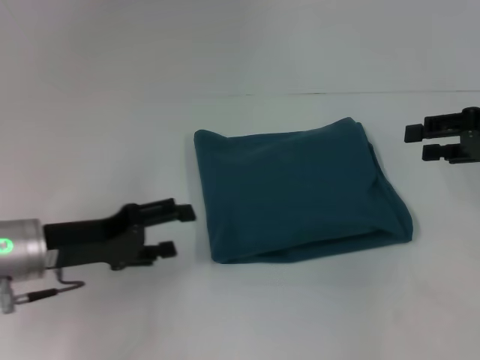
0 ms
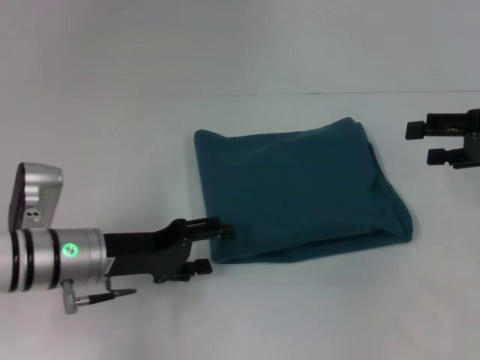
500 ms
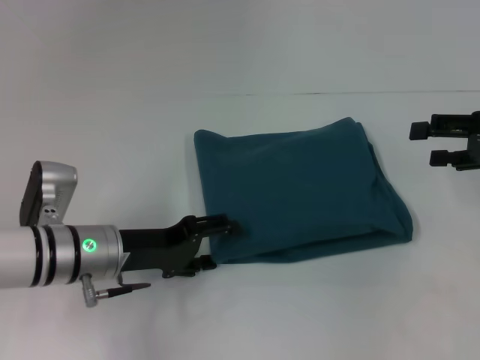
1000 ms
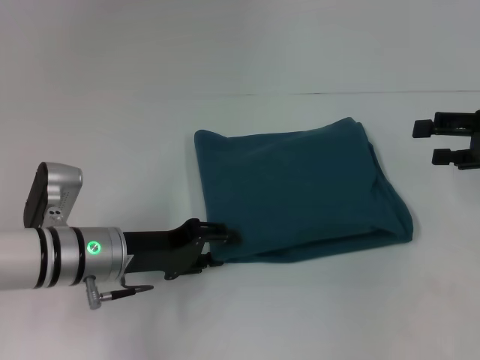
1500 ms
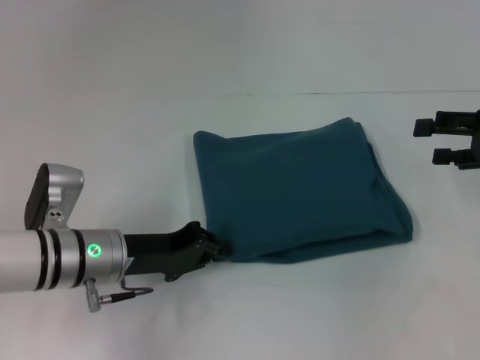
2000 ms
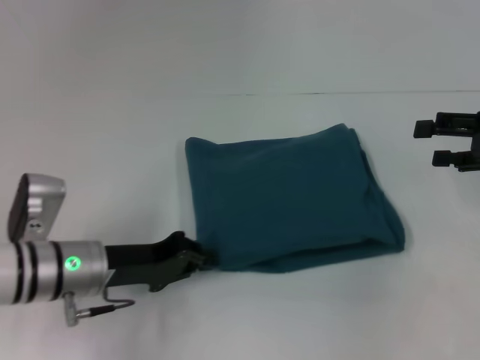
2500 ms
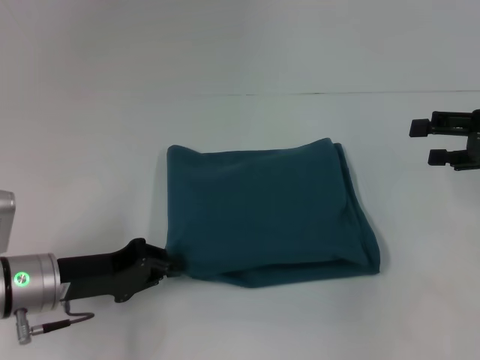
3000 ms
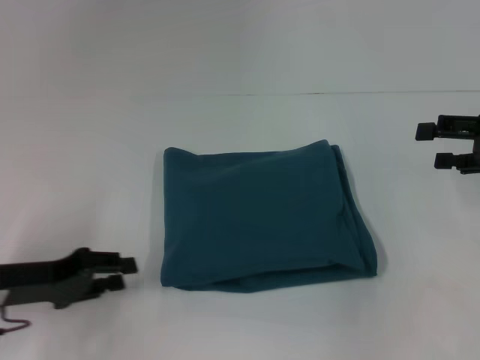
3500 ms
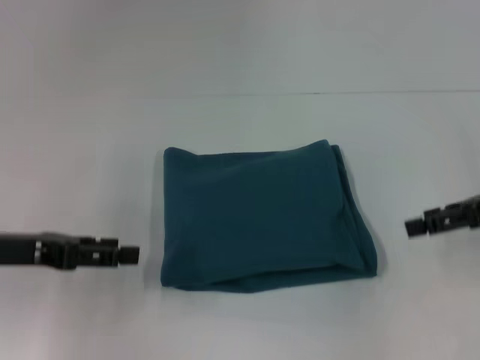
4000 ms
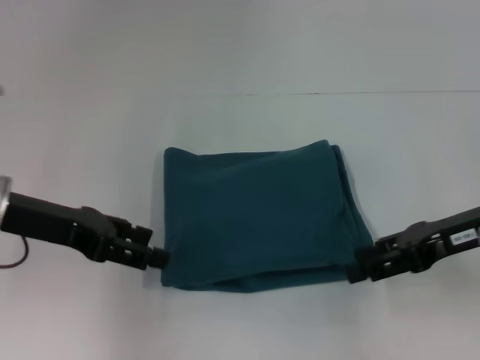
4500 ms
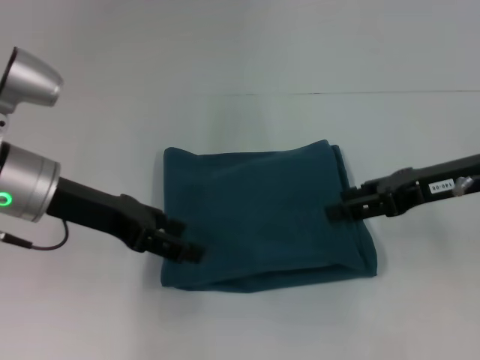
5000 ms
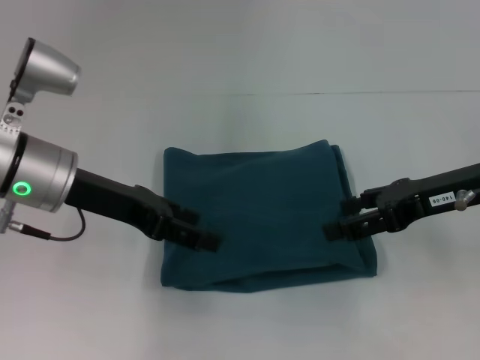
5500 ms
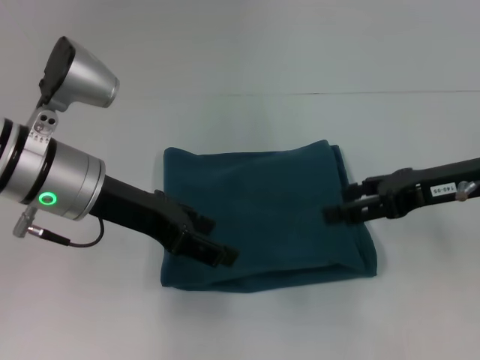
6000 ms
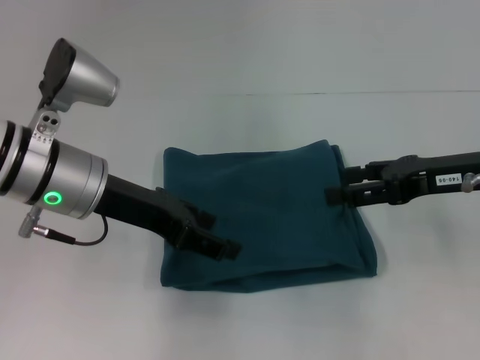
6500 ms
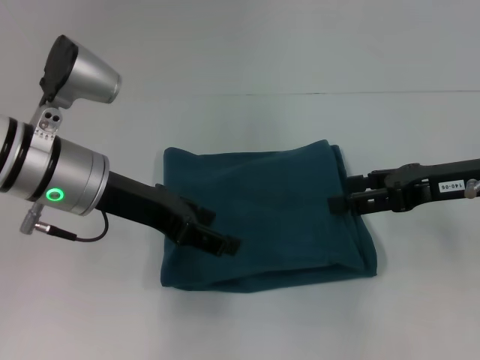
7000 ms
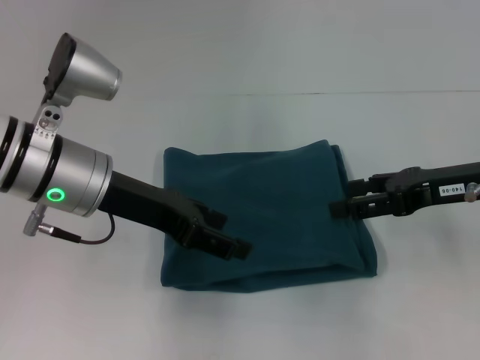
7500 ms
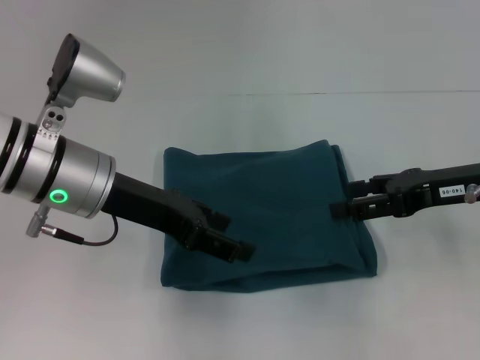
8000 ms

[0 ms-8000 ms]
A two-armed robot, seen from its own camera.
0 ms to 2000 ms: The left gripper heads to the right, covering approximately 5 cm, and closes up. Meanwhile the right gripper opens its fingers.
2000 ms to 4000 ms: The left gripper is displaced to the left and upward by approximately 15 cm, and opens up.
4000 ms to 6000 ms: The left gripper is displaced to the right by roughly 10 cm. Meanwhile the right gripper is displaced to the left by roughly 10 cm.
6000 ms to 8000 ms: The grippers move only a little.

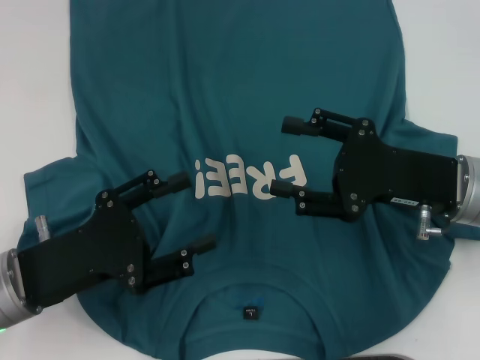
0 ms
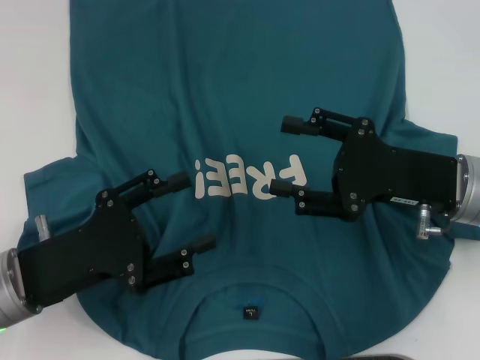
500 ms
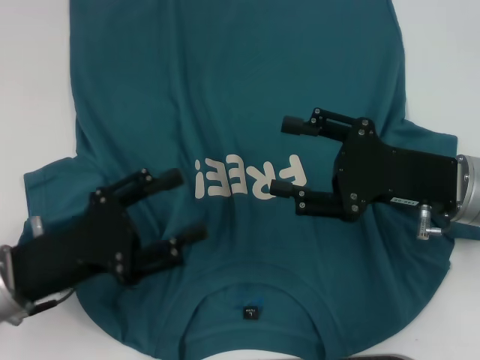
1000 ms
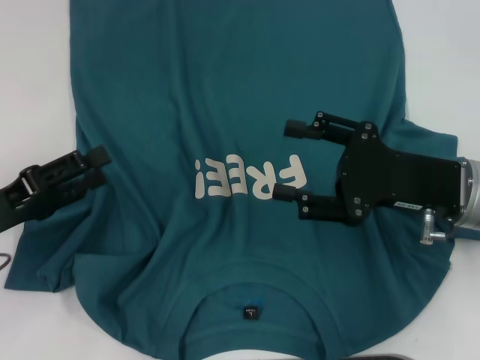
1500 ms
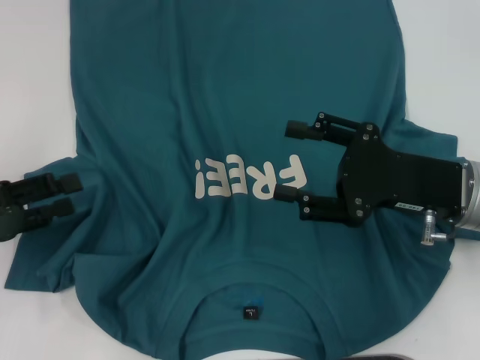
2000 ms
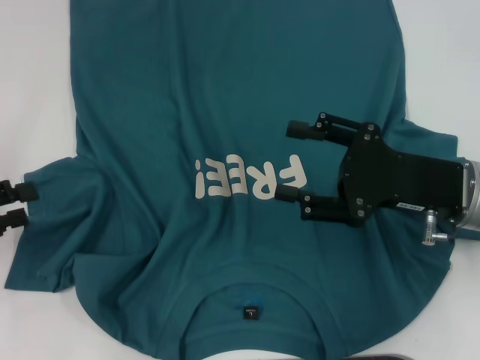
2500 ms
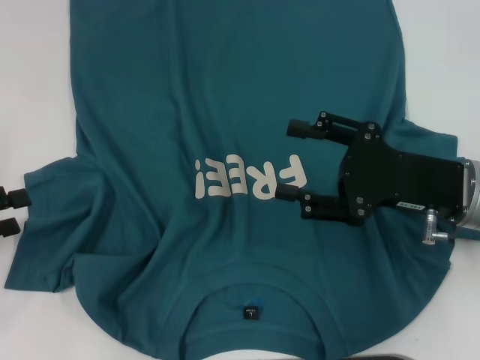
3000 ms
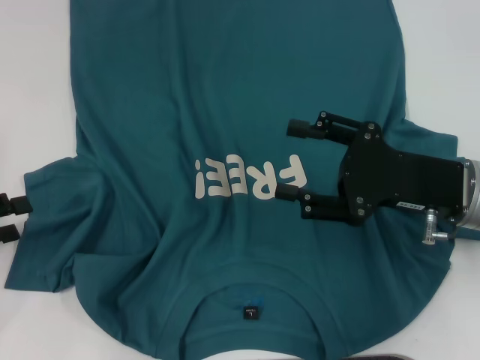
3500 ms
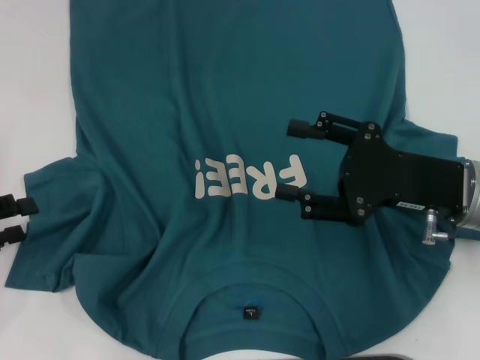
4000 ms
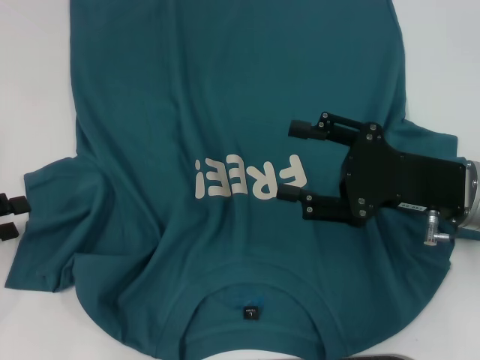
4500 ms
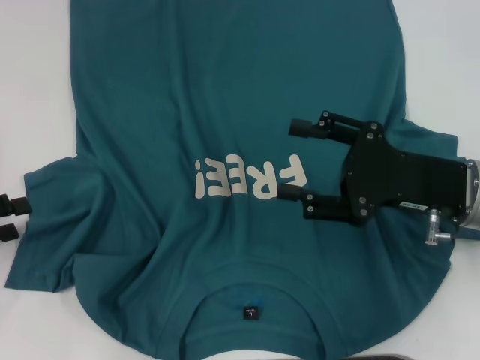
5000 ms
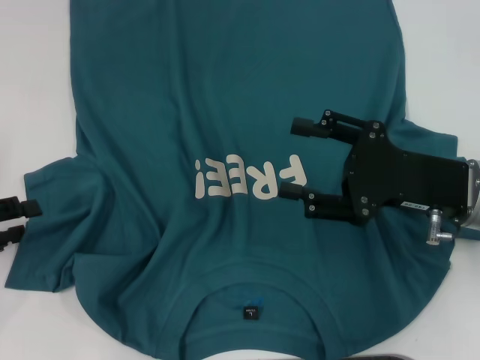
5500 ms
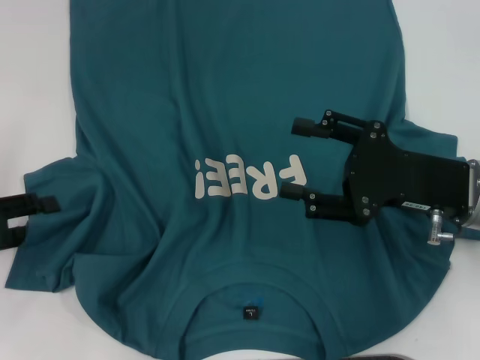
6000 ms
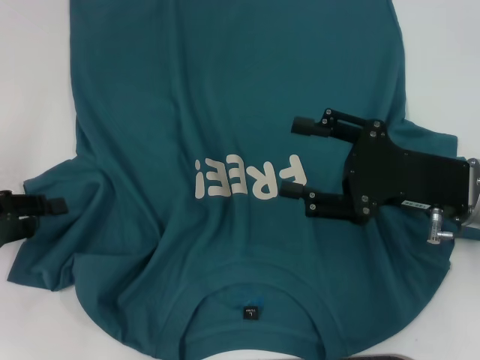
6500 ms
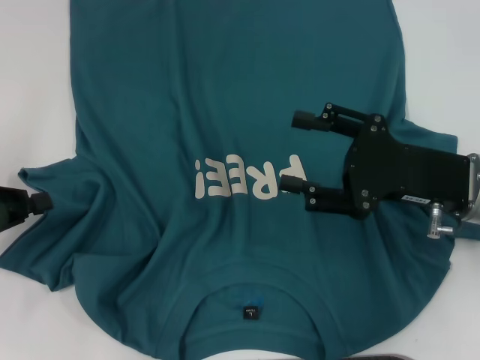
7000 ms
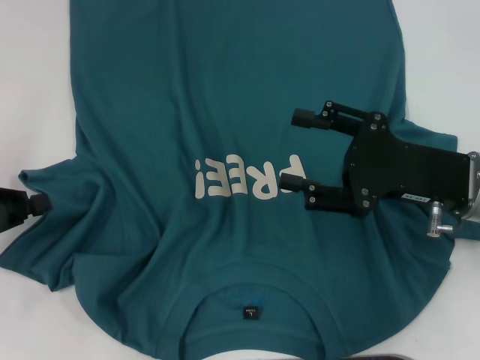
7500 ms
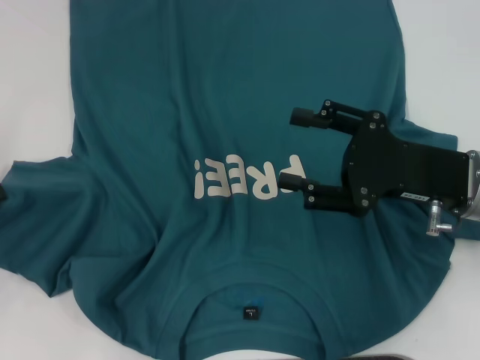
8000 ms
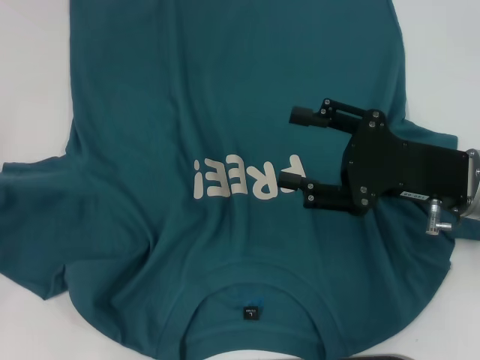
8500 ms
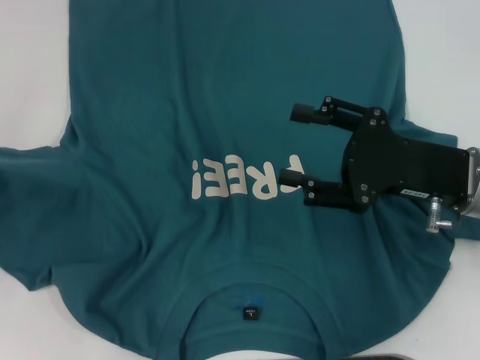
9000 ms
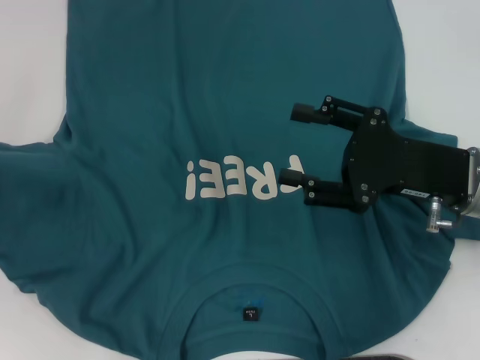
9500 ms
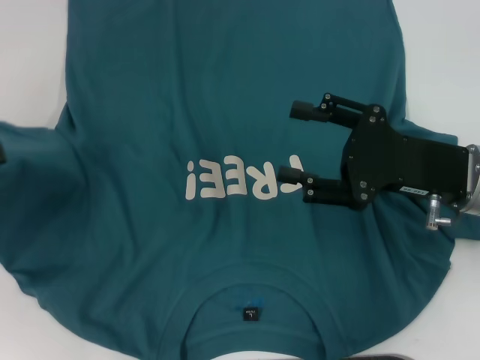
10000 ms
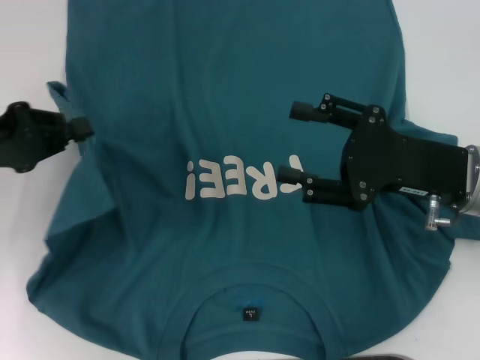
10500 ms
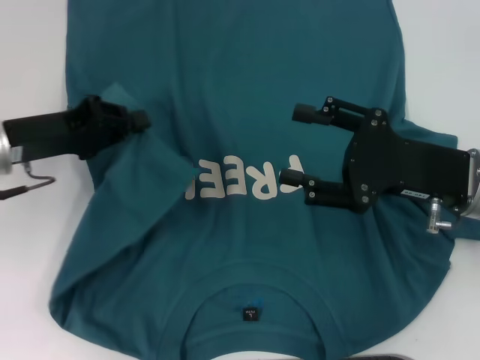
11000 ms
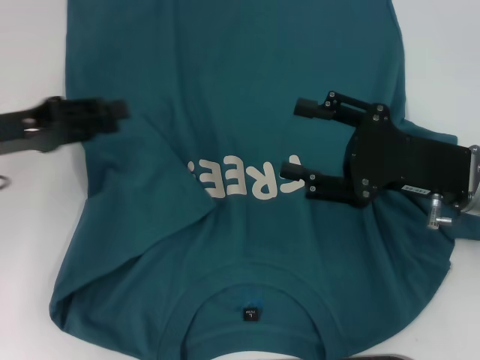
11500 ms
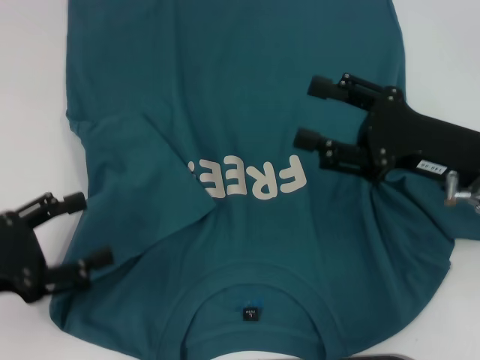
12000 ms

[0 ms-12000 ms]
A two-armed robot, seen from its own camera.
Step, 0 ms to 11000 ms: Fold the bottom left sleeve with your left hand.
0 ms to 2000 ms: The left gripper goes some 10 cm to the left.
2000 ms to 6000 ms: The grippers make only small movements.
6000 ms to 8000 ms: The left gripper closes up.
8000 ms to 10000 ms: The left gripper shifts by approximately 5 cm.
10000 ms to 12000 ms: The left gripper travels downward, backward and to the right by some 10 cm, and opens.

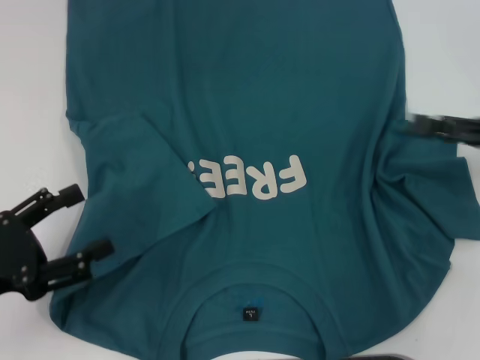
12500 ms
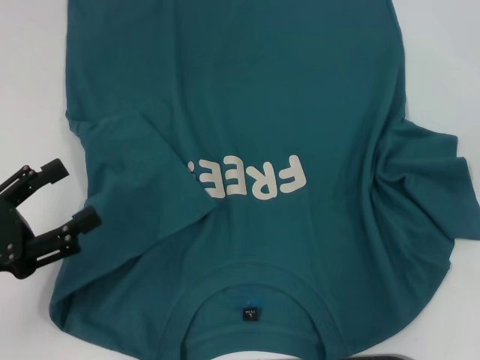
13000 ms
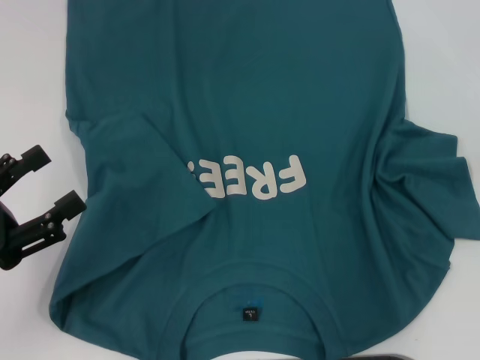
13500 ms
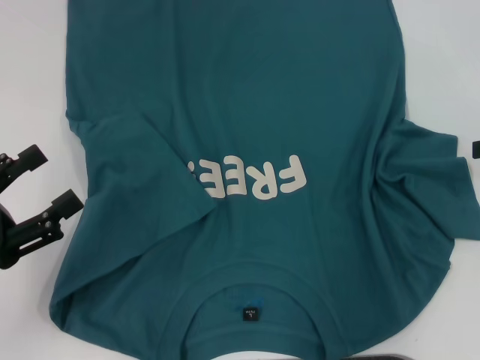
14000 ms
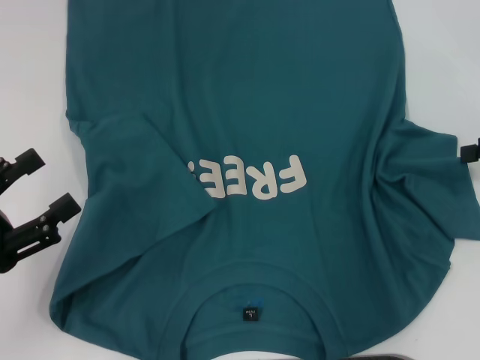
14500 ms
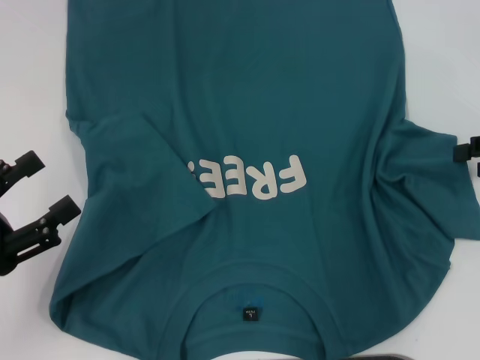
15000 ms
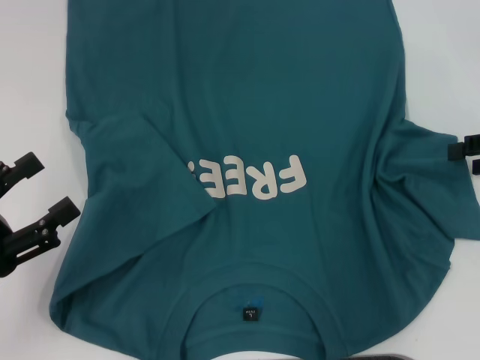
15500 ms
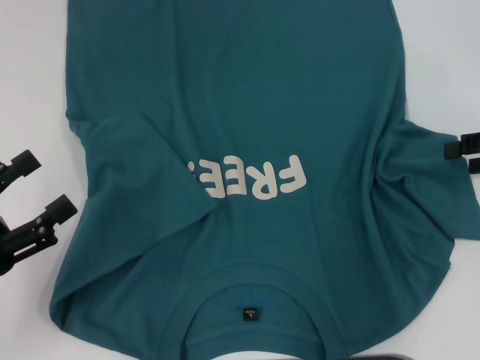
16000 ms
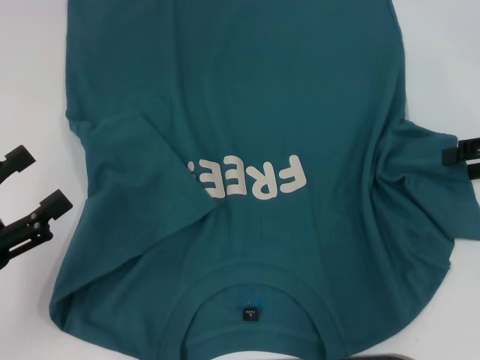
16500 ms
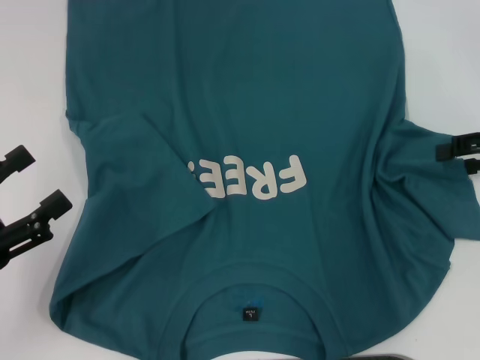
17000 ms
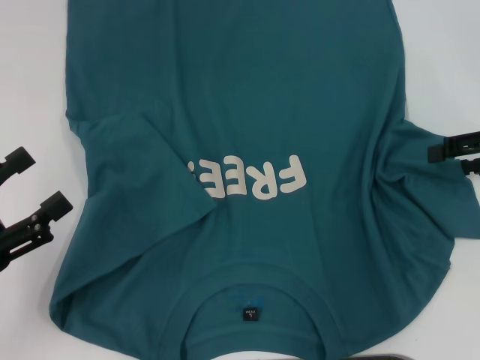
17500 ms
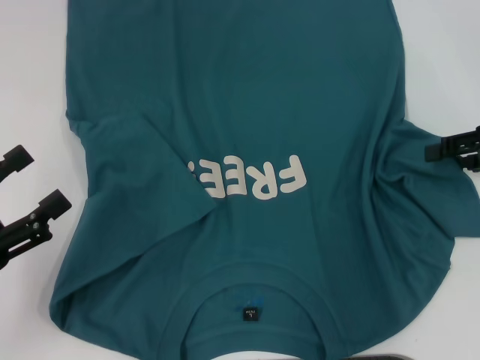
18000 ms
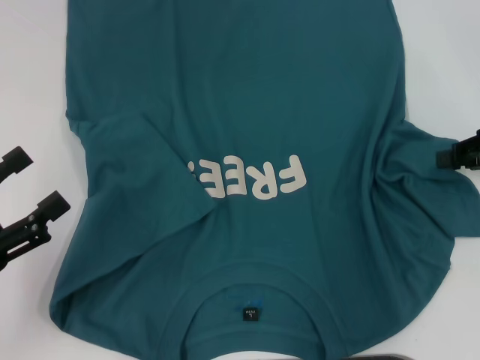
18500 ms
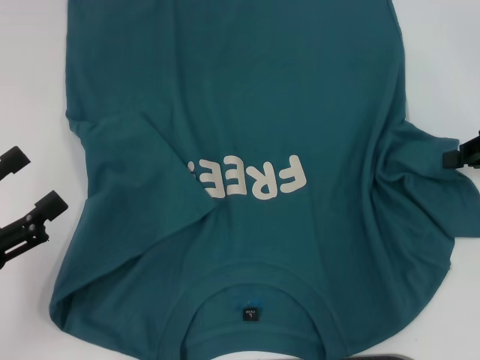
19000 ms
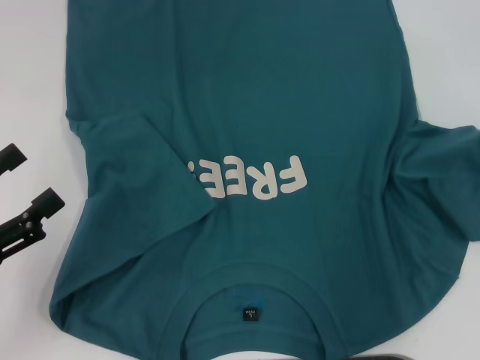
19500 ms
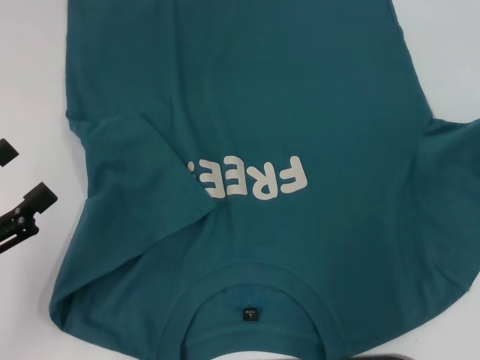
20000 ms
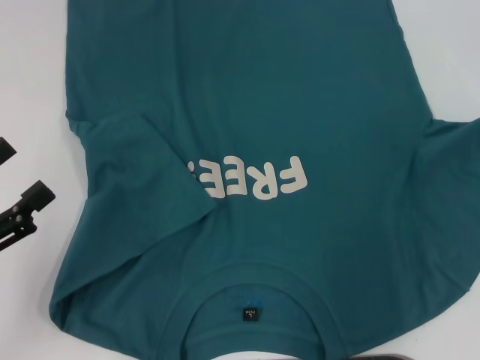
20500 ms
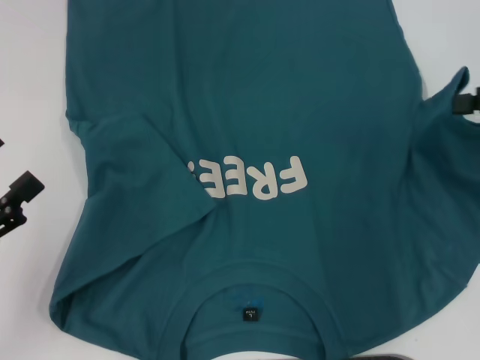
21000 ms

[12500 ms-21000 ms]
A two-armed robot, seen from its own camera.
12500 ms to 14500 ms: The right gripper moves about 5 cm.
14500 ms to 16500 ms: The grippers move only a little.
16500 ms to 19000 ms: The right gripper closes.
19000 ms to 21000 ms: The right gripper heads upward, covering some 5 cm.
